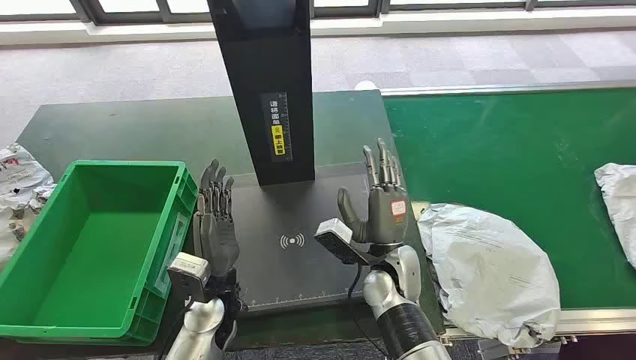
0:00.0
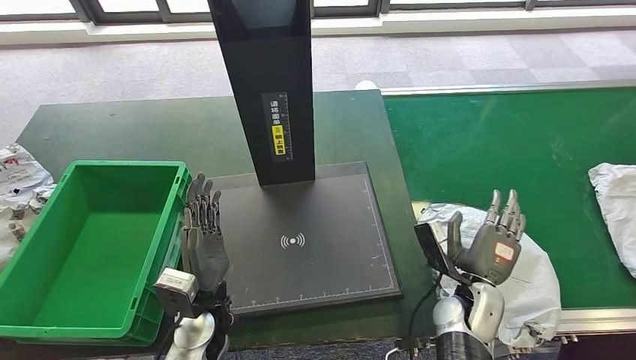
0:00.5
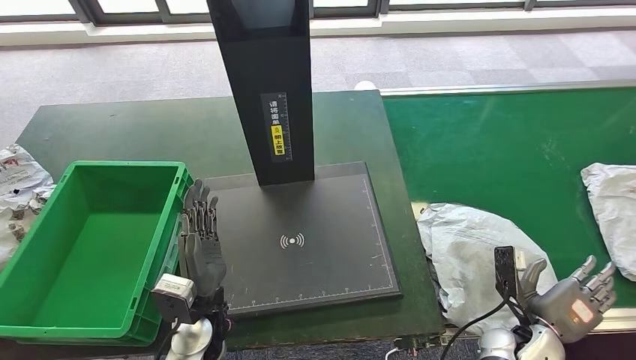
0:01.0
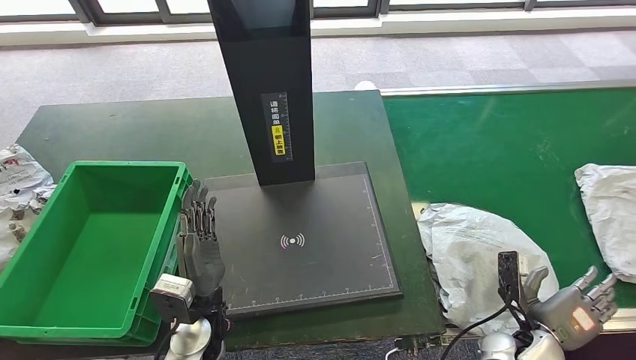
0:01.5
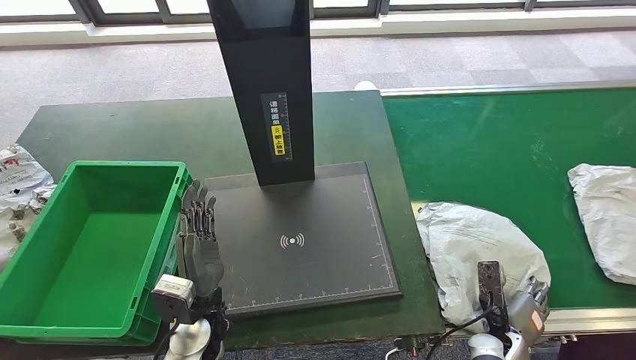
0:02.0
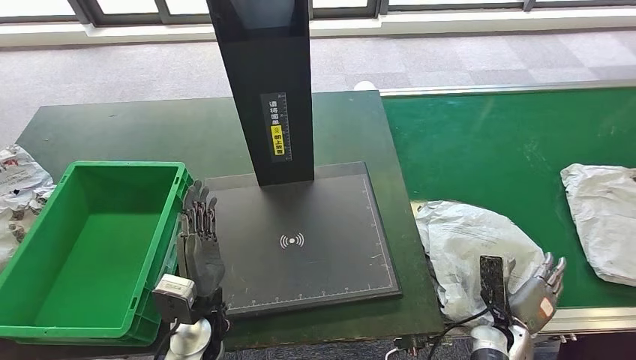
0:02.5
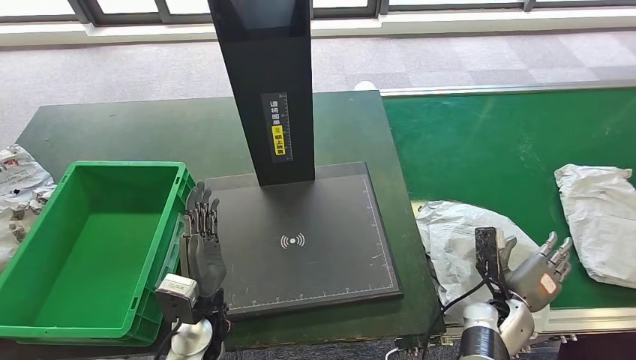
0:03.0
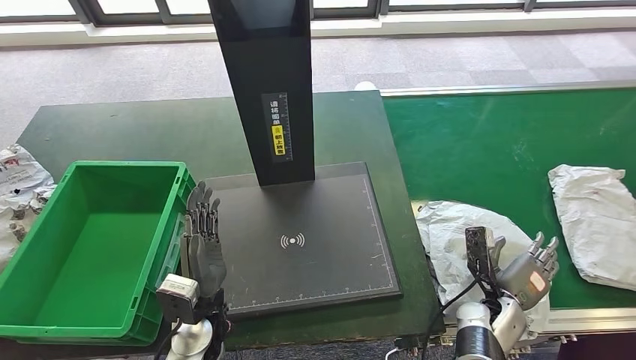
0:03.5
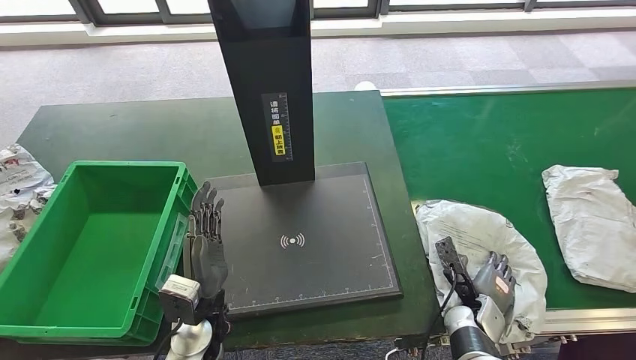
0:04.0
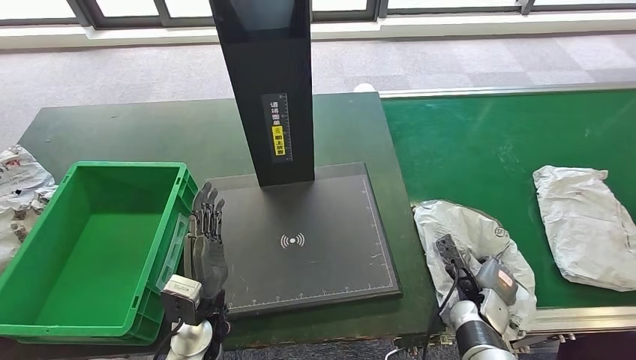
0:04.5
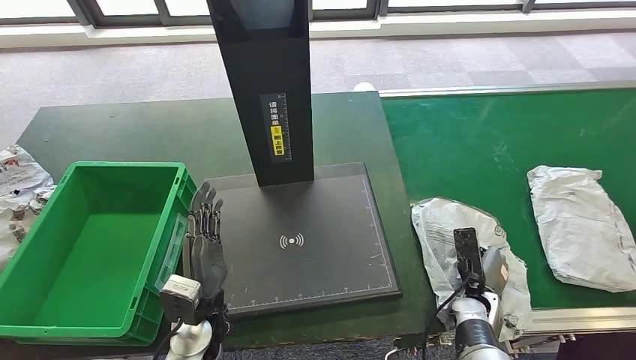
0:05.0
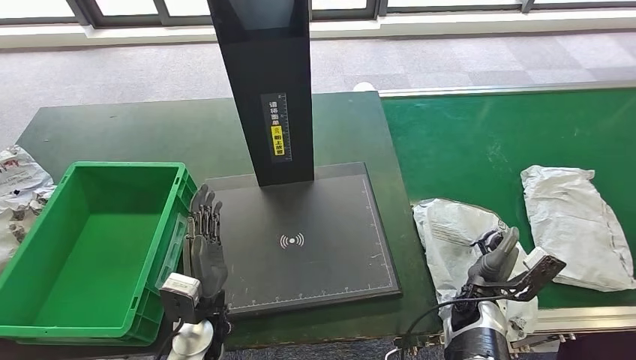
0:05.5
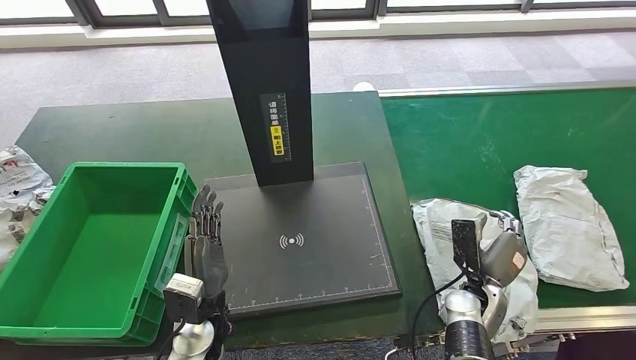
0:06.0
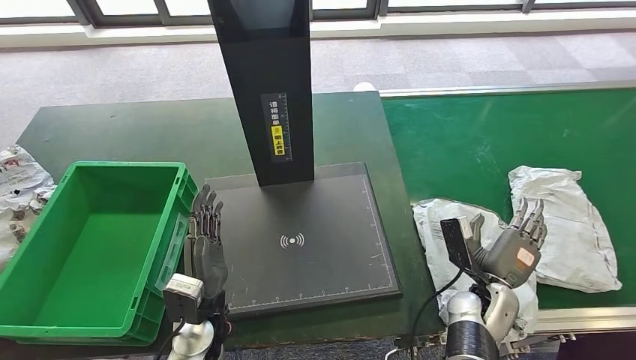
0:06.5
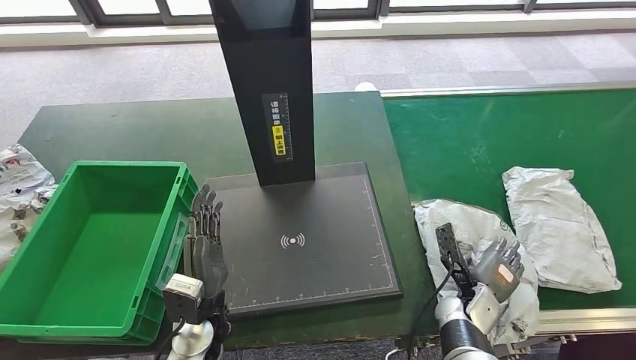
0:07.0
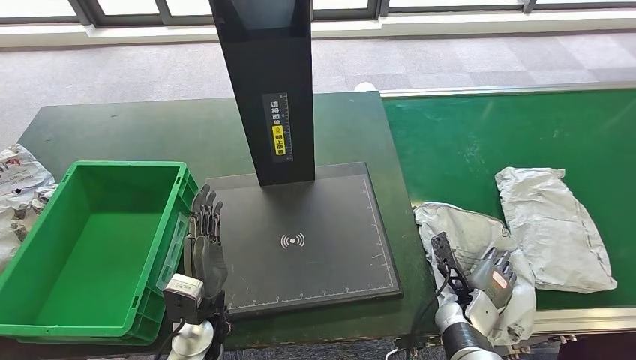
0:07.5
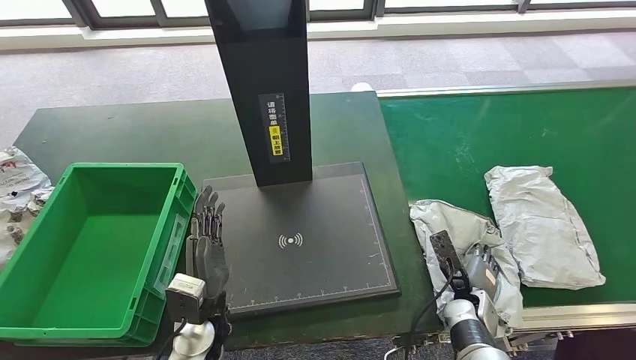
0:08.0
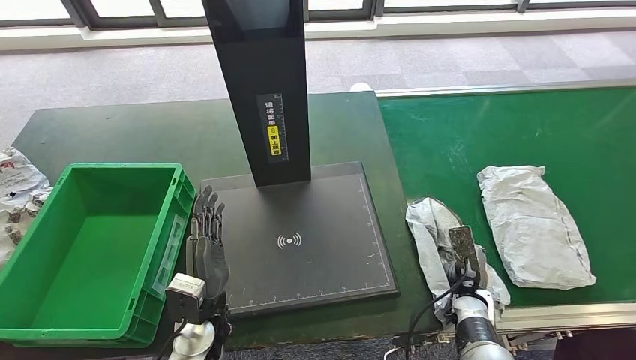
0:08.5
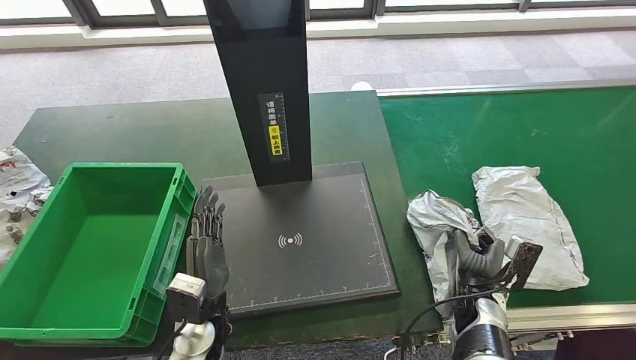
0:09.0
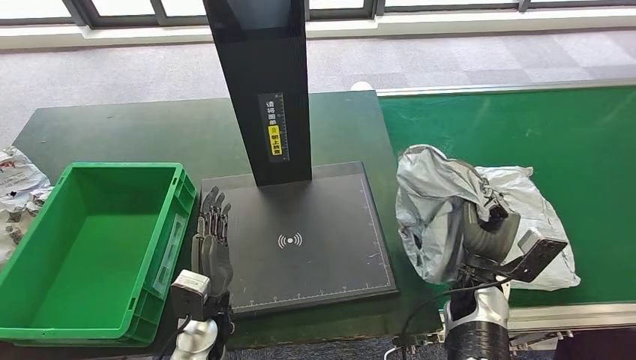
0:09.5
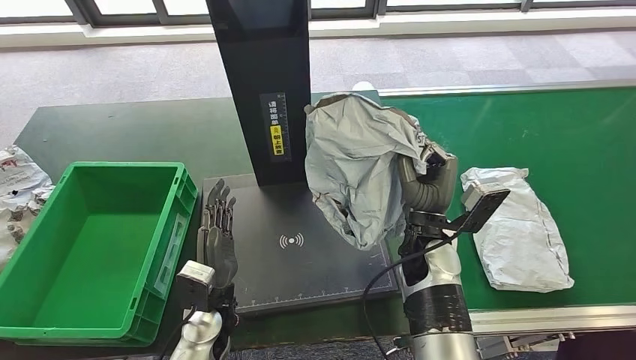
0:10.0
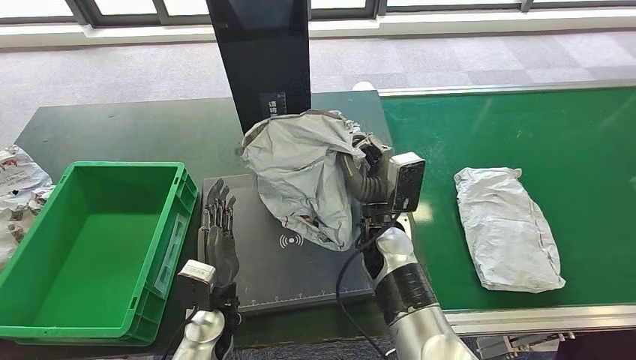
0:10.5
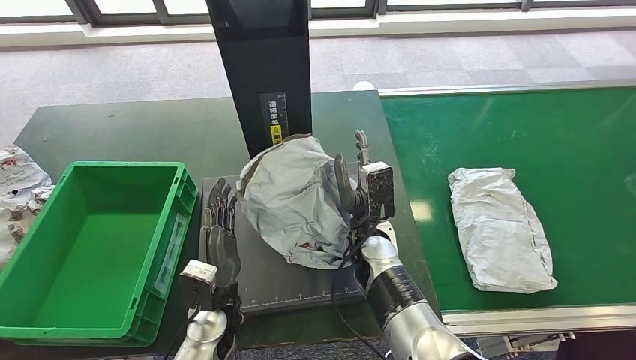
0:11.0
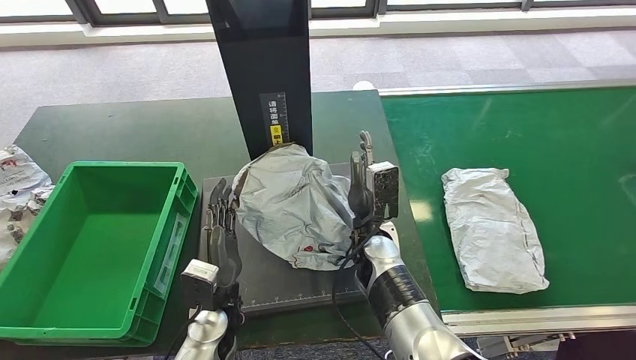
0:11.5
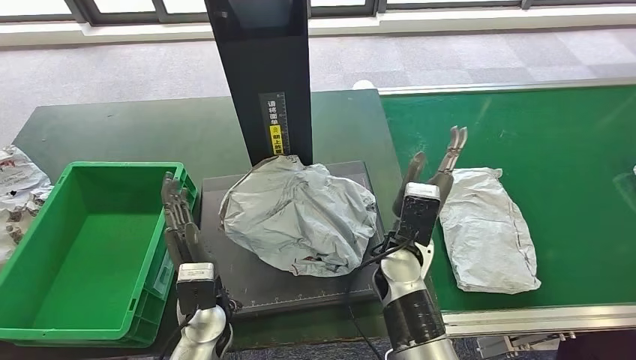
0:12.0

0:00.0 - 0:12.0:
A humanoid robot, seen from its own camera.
Step, 0:00.0 - 0:10.0: Take the parcel off the conveyor belt.
0:02.0 - 0:04.0: The right hand goes roughly 5 cm forward.
0:04.0 - 0:06.0: The right hand travels upward by approximately 5 cm.
0:06.0 - 0:08.0: The right hand moves downward, about 5 cm.

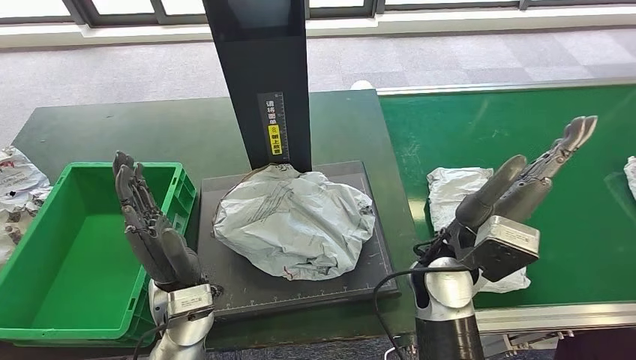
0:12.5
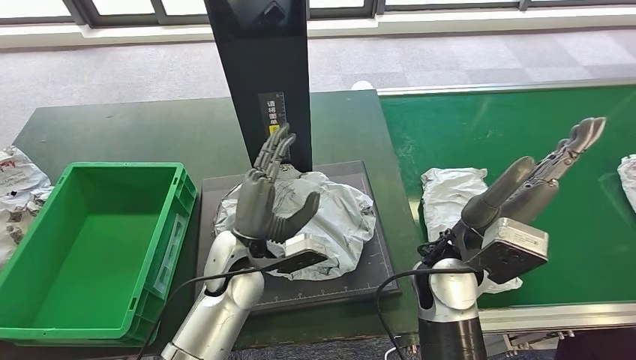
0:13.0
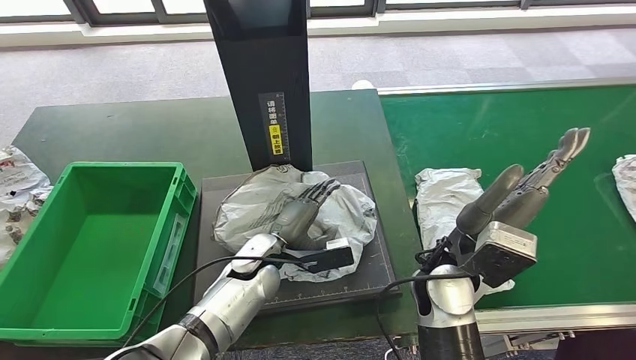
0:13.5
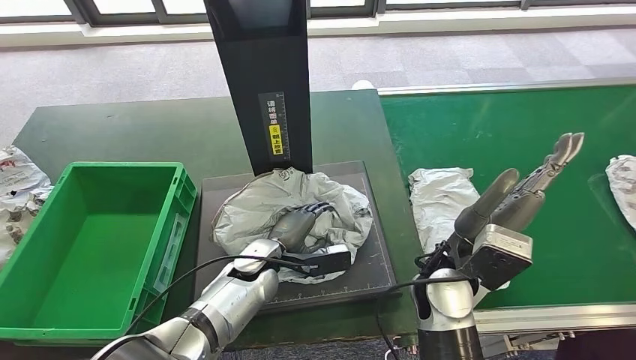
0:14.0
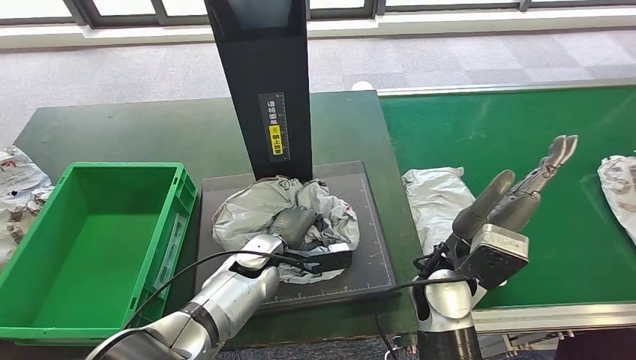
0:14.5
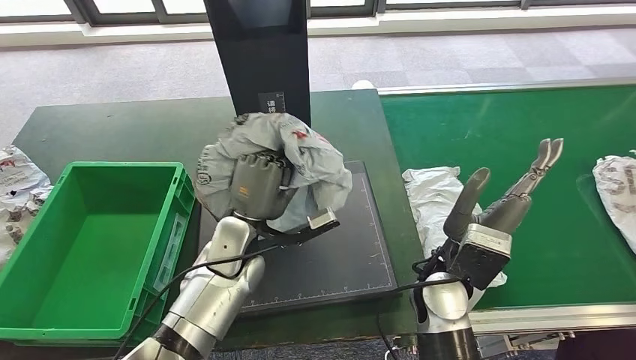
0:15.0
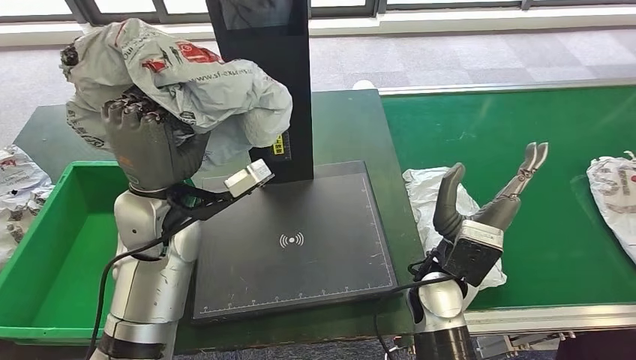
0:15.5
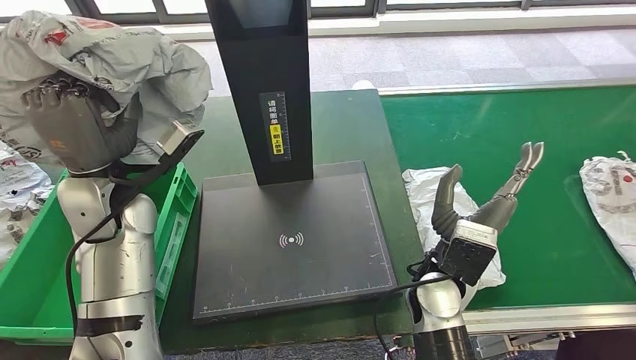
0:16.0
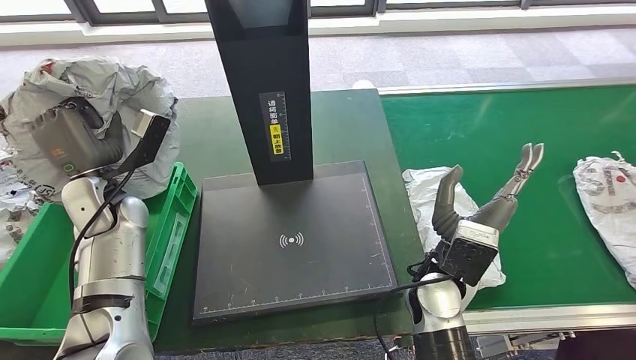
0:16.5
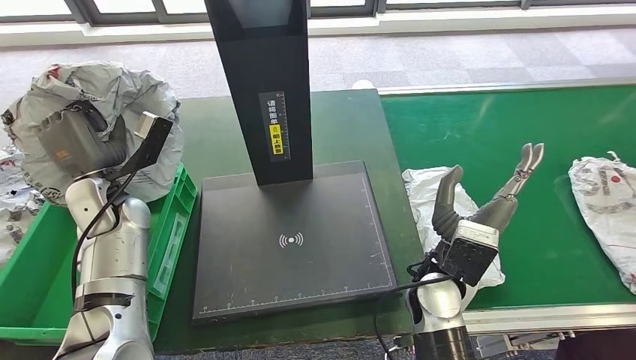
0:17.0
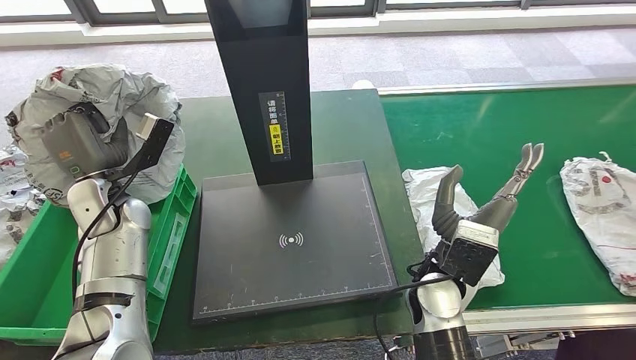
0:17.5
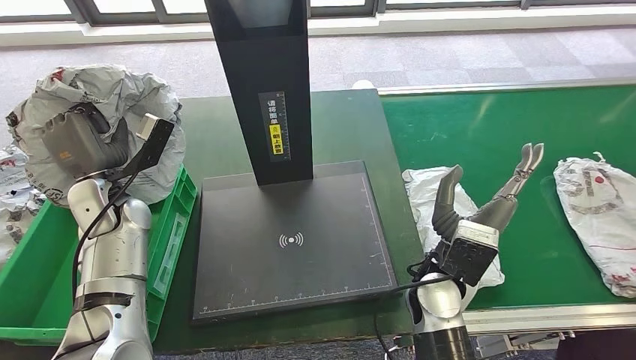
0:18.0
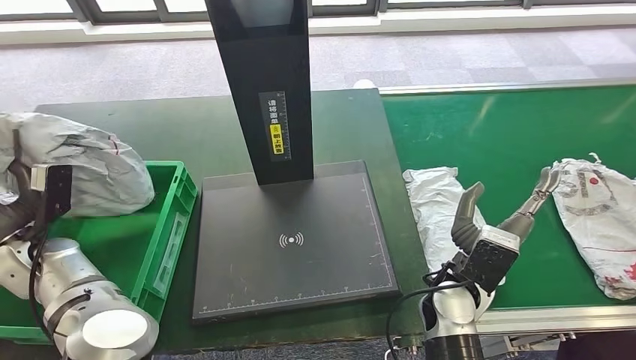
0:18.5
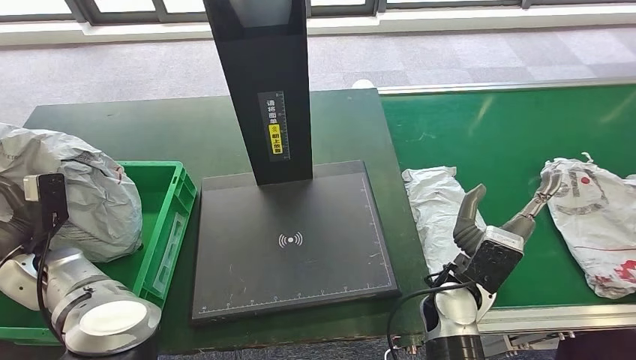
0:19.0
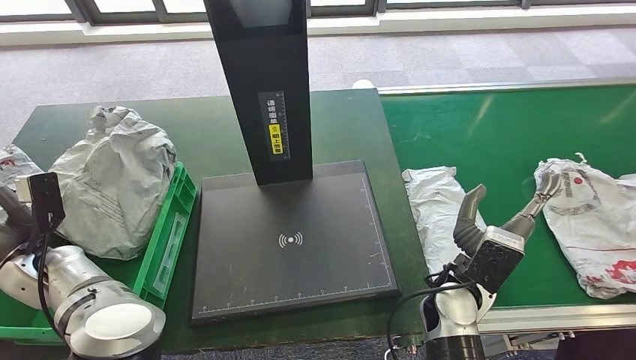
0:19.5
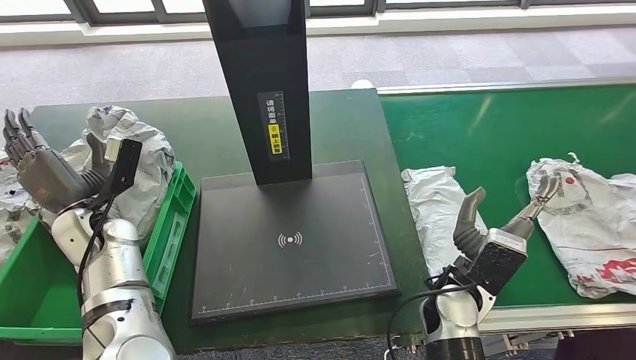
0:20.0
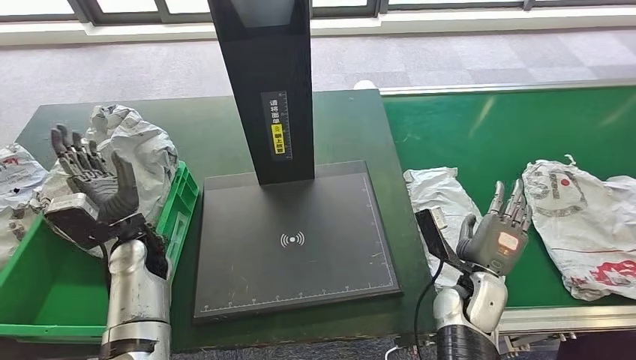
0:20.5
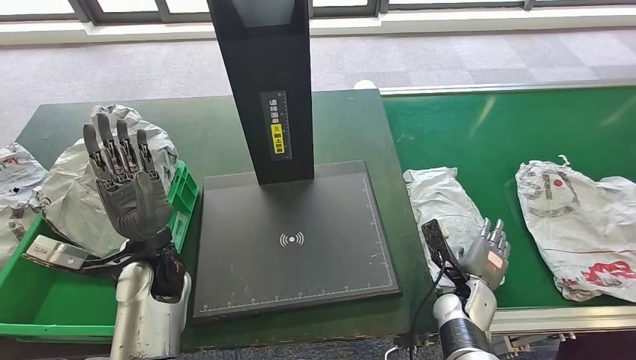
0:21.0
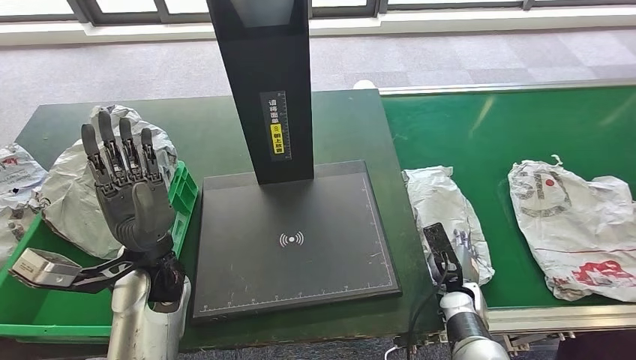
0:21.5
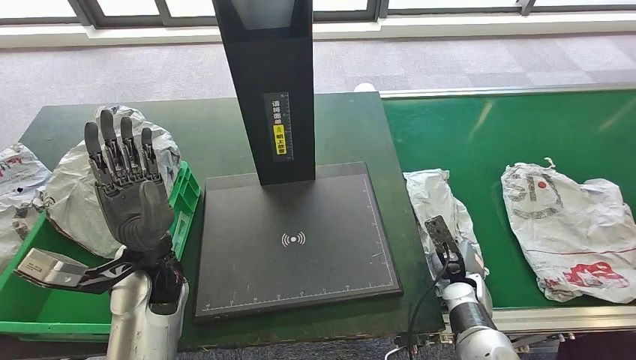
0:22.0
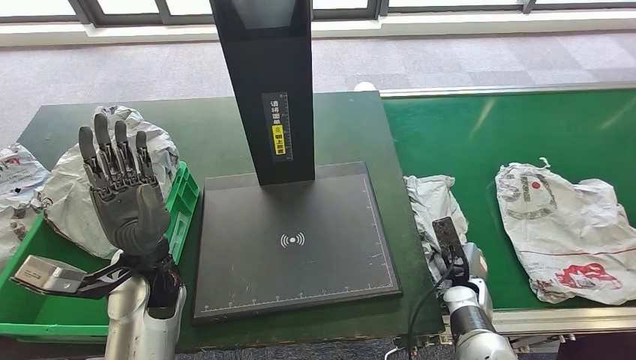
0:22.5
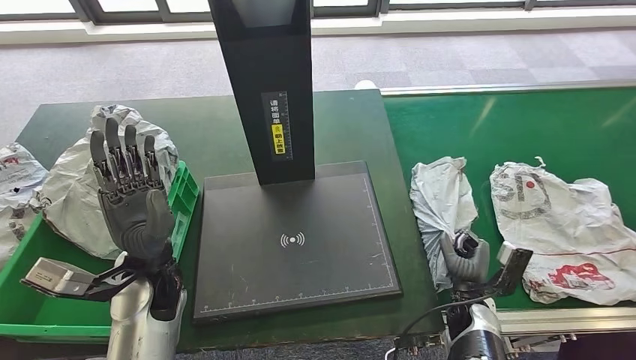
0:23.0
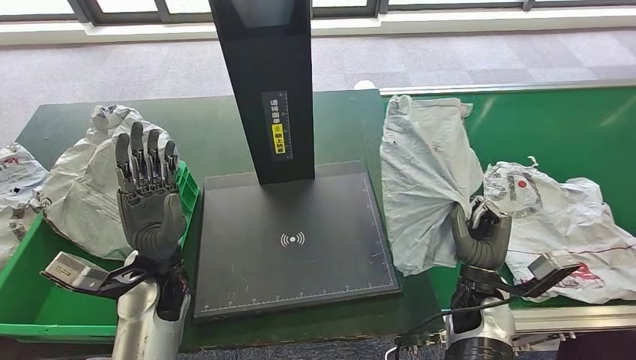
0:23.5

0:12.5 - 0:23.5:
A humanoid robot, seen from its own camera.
Step, 0:14.0 - 0:16.0: Pick up the parcel from the inbound machine.
Step, 0:16.5 - 0:20.5: Put the parcel inside the courier box.
0:16.0 - 0:18.0: The left hand is displaced downward and to the left by roughly 10 cm.
